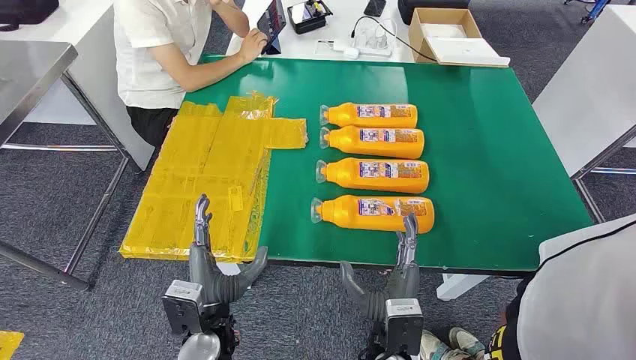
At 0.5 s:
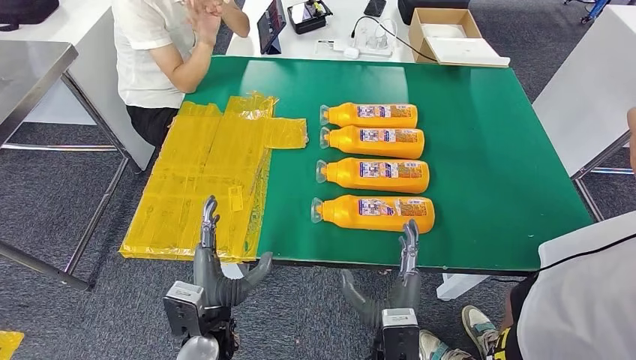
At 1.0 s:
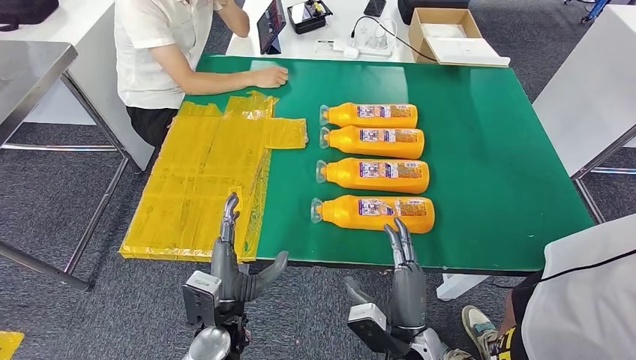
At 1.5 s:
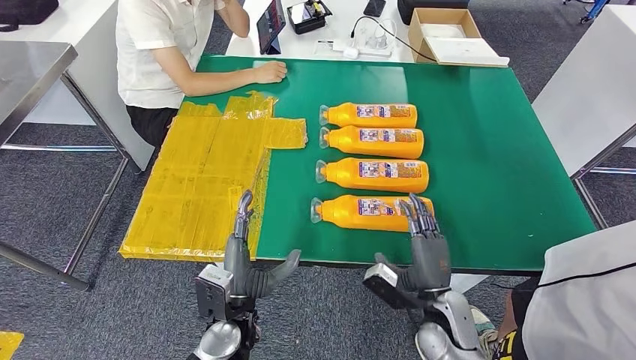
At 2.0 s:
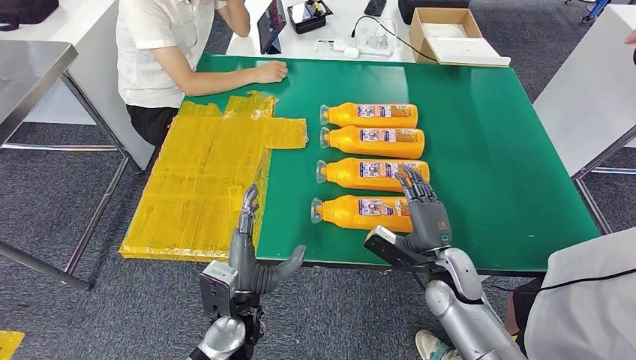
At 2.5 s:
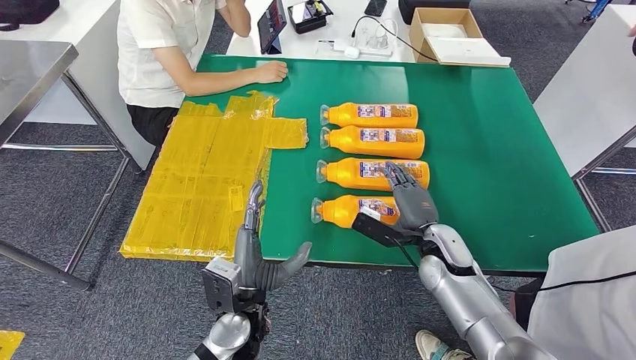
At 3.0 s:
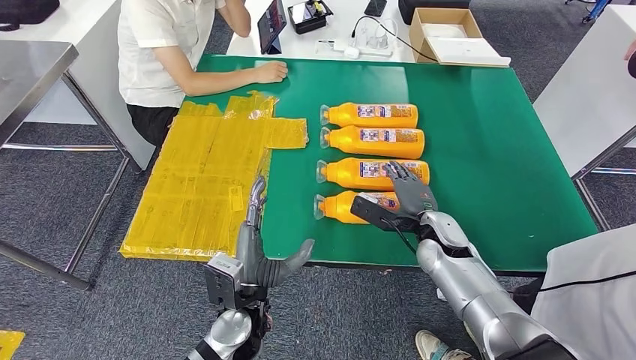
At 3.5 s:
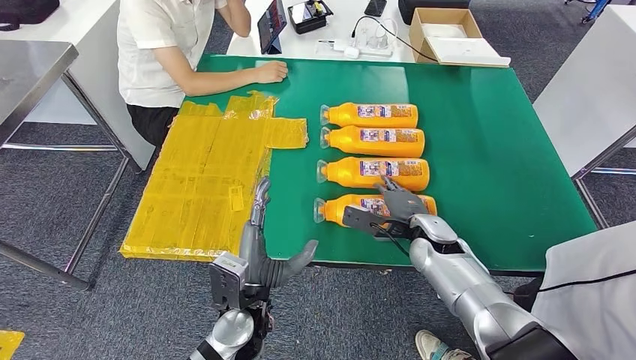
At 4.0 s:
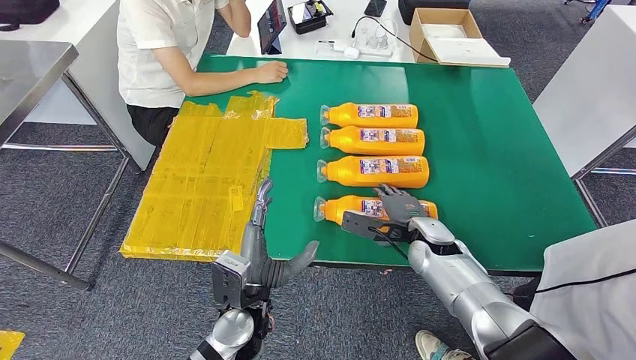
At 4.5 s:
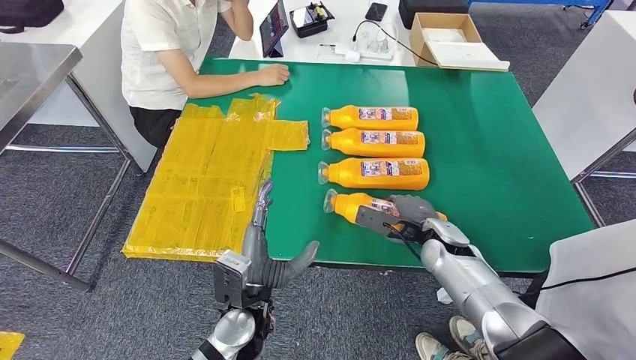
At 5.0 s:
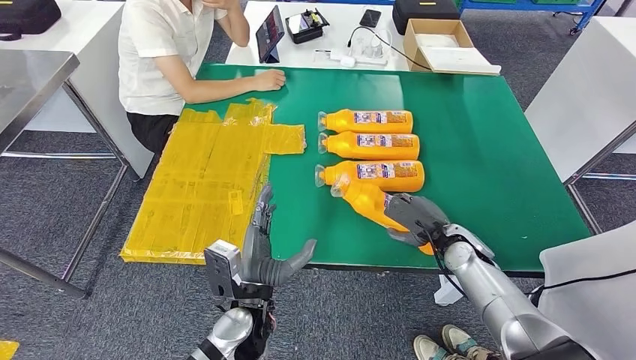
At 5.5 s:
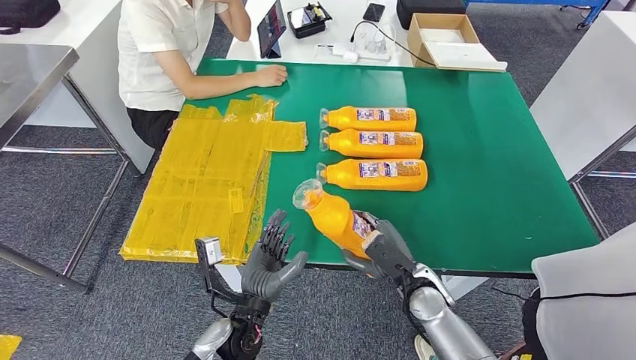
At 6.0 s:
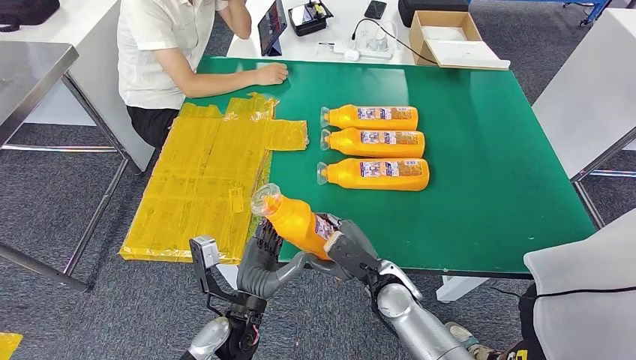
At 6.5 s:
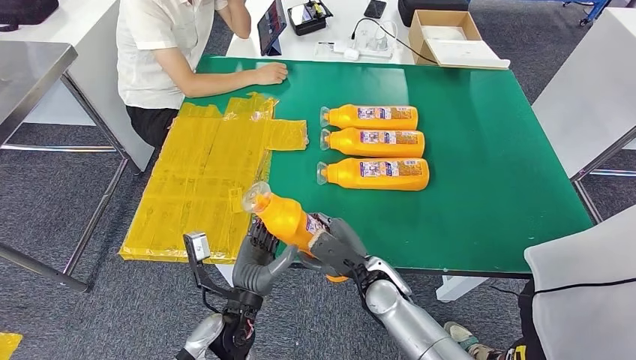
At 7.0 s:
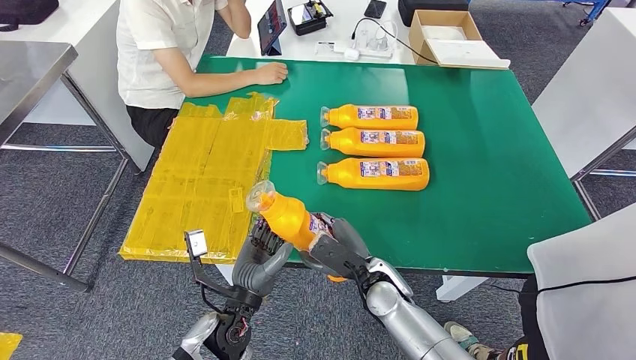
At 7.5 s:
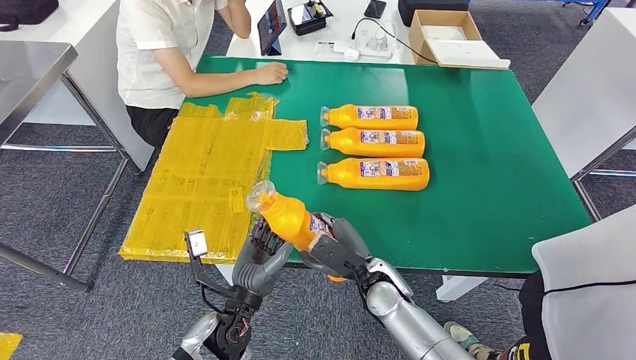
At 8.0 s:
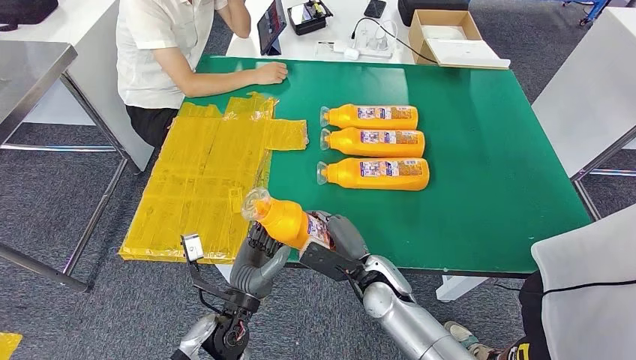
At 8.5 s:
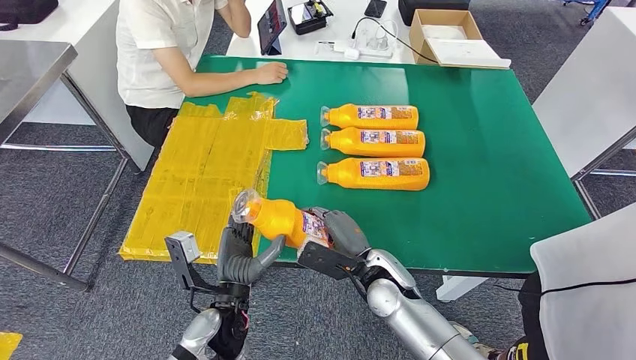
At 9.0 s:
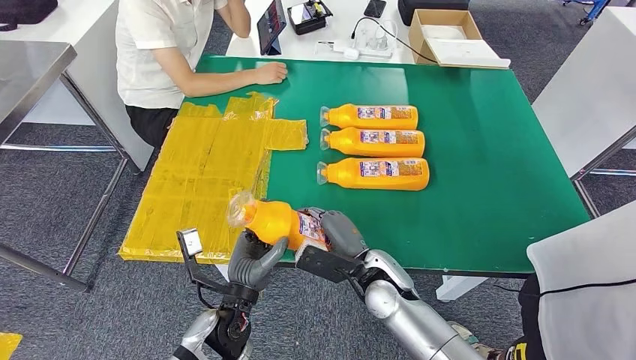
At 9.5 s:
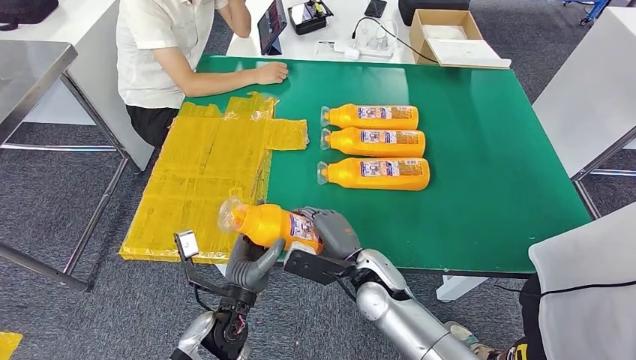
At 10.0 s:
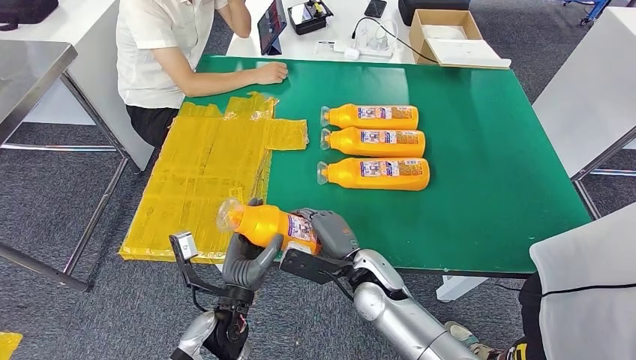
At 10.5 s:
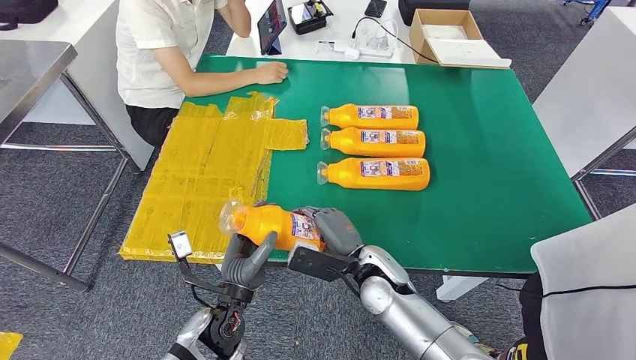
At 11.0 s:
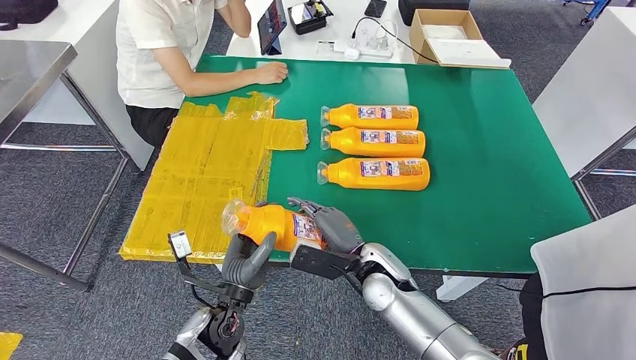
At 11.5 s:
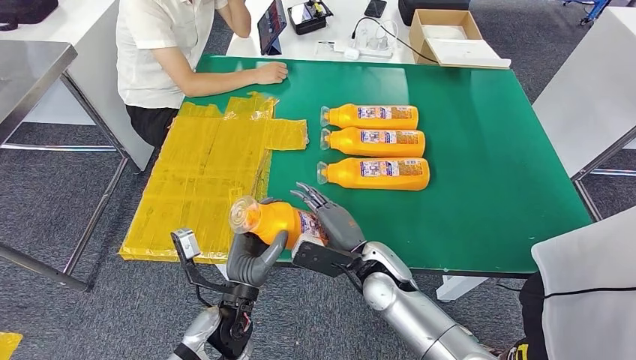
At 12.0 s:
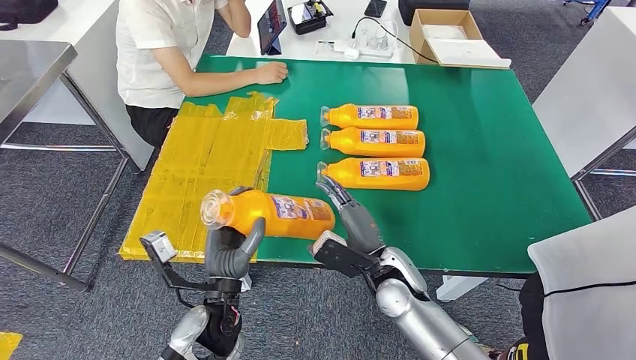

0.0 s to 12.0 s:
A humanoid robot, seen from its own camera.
Step, 0.0 to 5.5 s: Take the bottle from the table.
2.0 to 4.0 s: The right hand goes roughly 5 cm forward.
4.0 to 6.0 s: The right hand is displaced backward and to the left by approximately 10 cm.
6.0 to 8.0 s: There are only small adjustments of the hands.
10.0 to 12.0 s: The hands move only a little.

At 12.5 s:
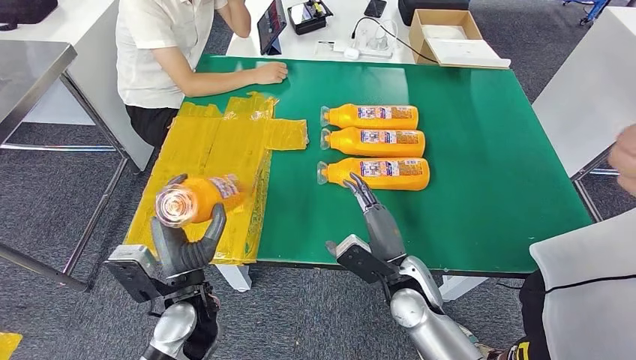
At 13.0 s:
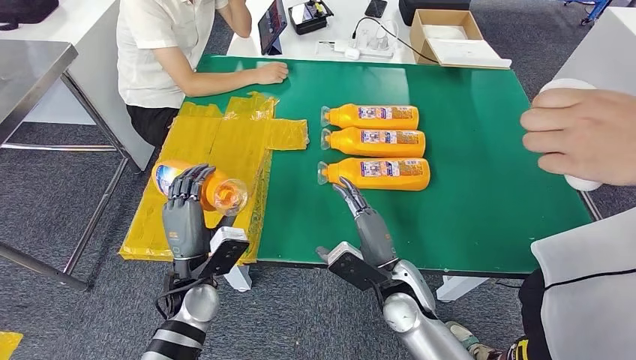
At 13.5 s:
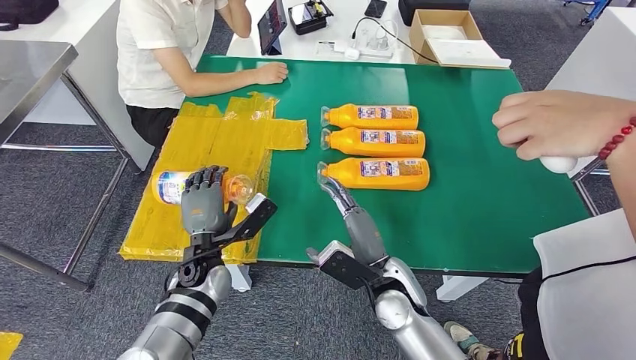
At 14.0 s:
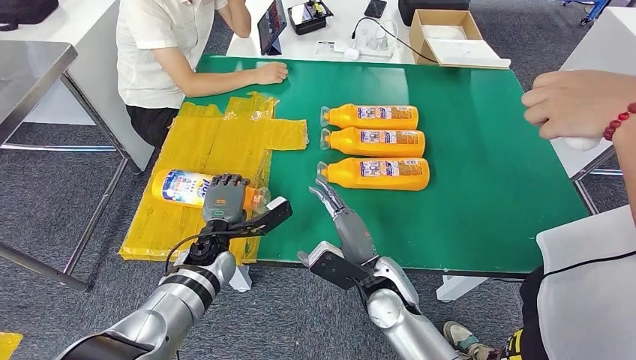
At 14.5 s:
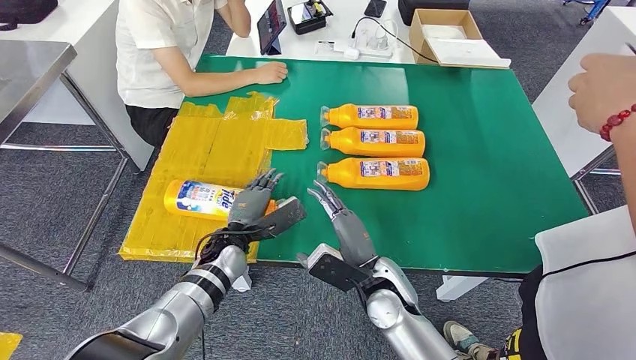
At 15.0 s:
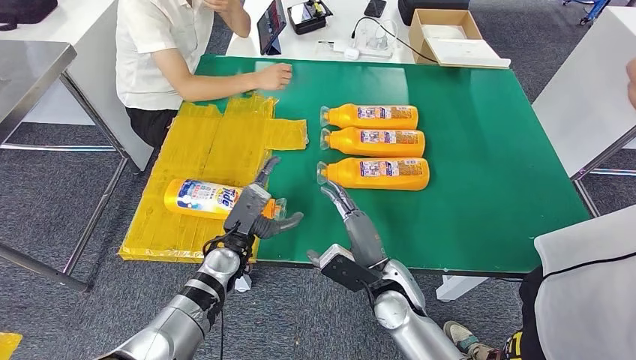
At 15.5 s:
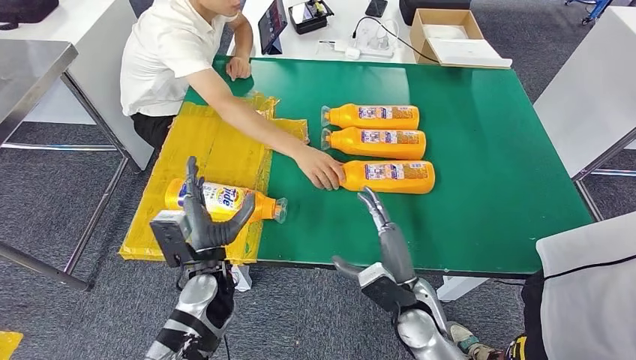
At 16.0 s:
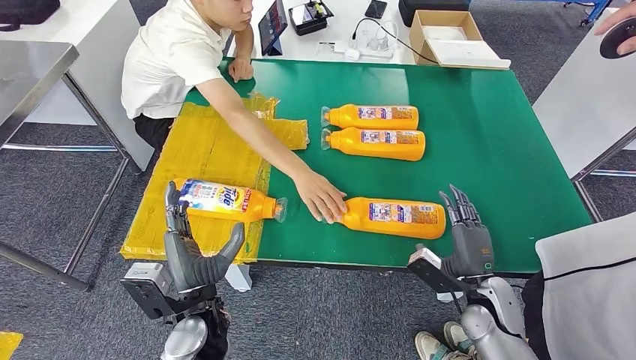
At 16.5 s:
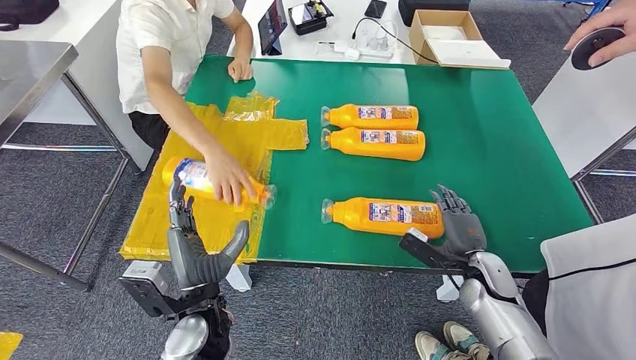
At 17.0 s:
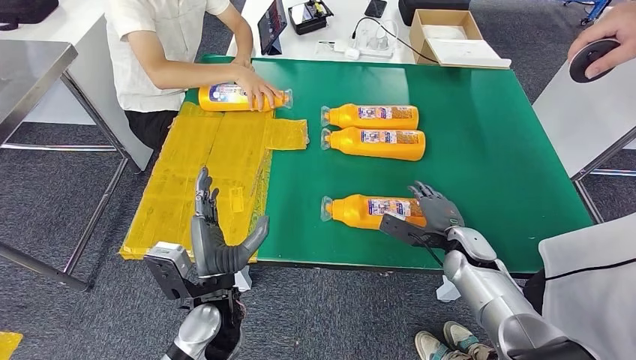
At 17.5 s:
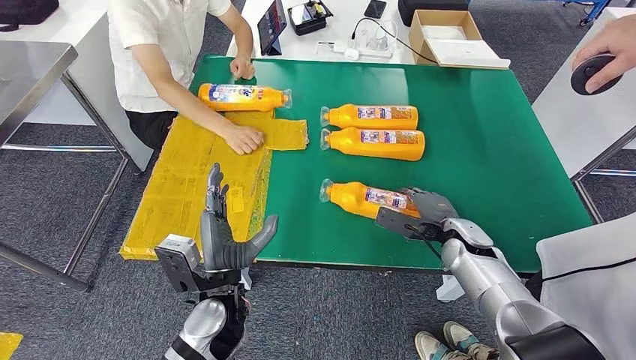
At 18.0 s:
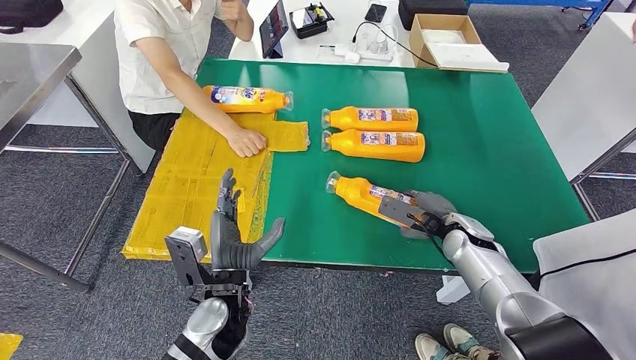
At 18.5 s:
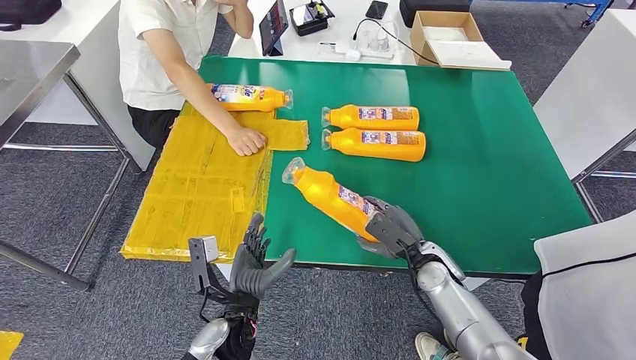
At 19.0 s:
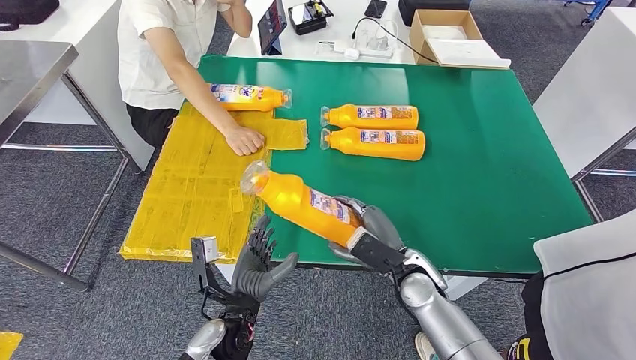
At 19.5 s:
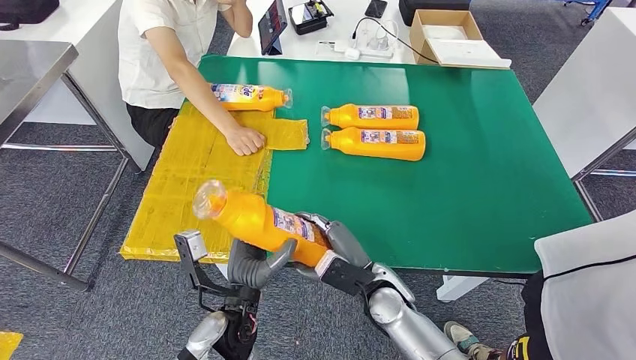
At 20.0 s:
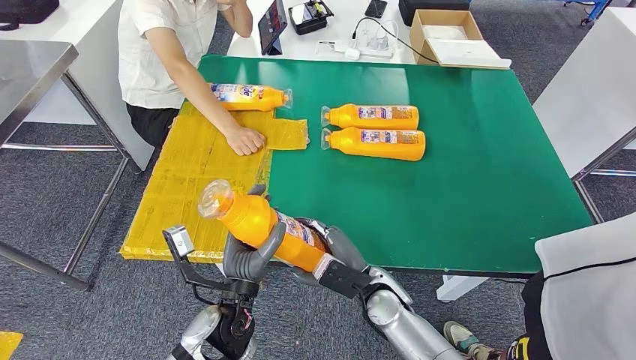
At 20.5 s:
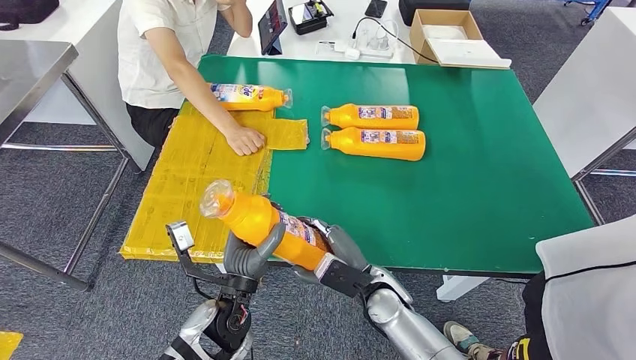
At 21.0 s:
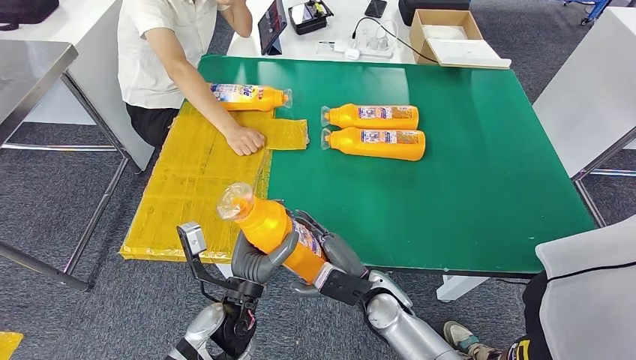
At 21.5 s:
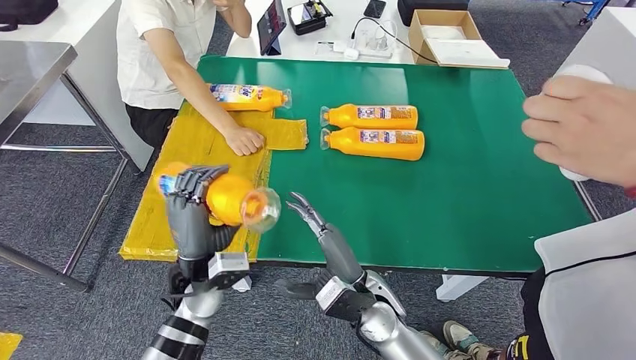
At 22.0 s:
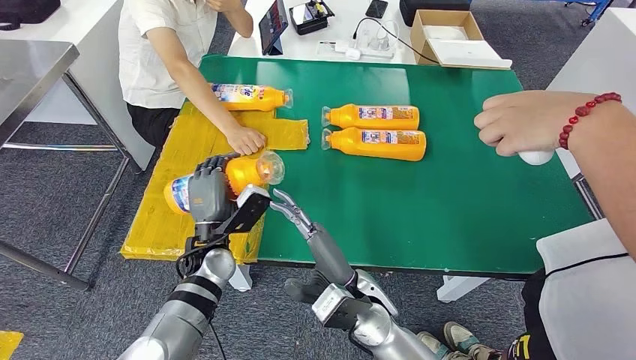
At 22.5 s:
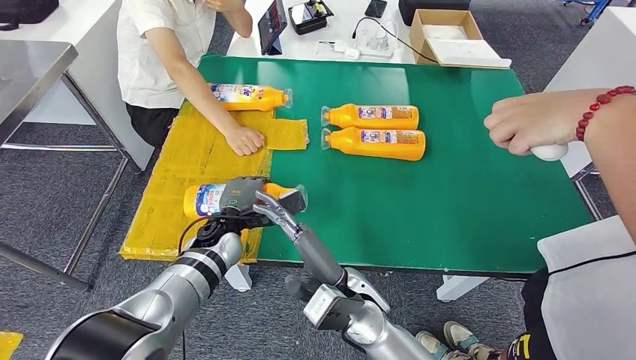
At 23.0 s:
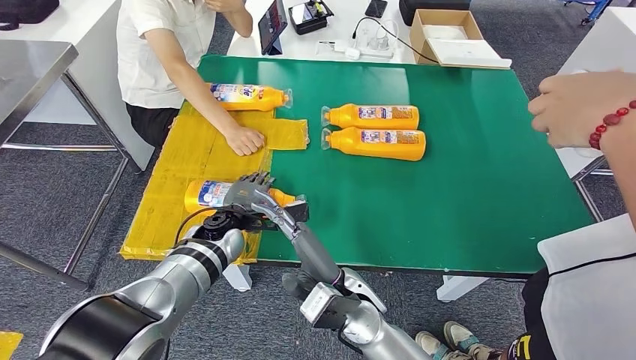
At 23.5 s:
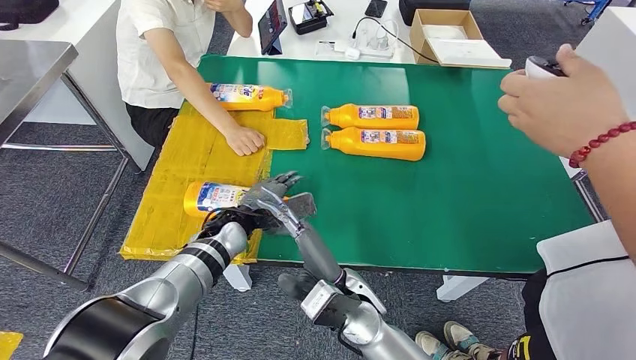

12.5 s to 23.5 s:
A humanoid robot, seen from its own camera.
Step, 12.5 to 15.5 s: Flip the bottle to face forward.
Step, 16.0 to 19.0 s: Pick up the bottle from the table.
12.5 to 14.5 s: The left hand shifts about 10 cm forward.
20.0 to 21.5 s: The left hand shifts about 10 cm to the left and forward.
21.5 to 23.5 s: The left hand travels forward by about 10 cm.
